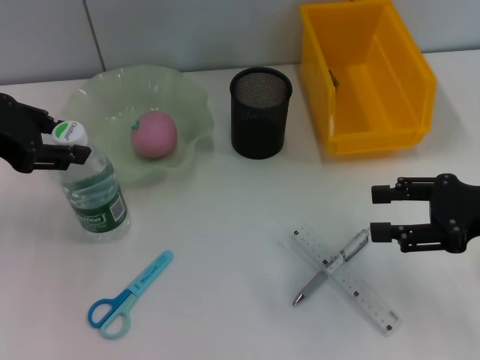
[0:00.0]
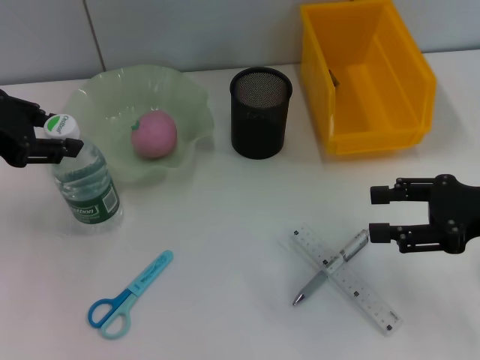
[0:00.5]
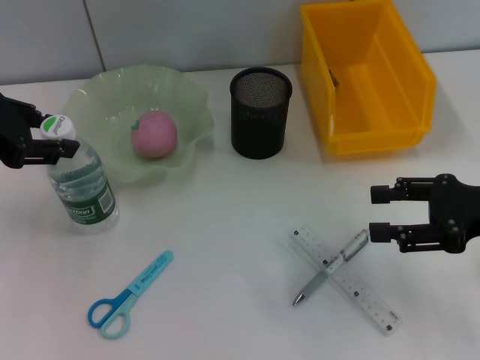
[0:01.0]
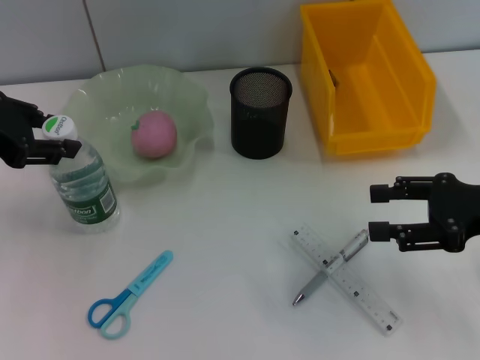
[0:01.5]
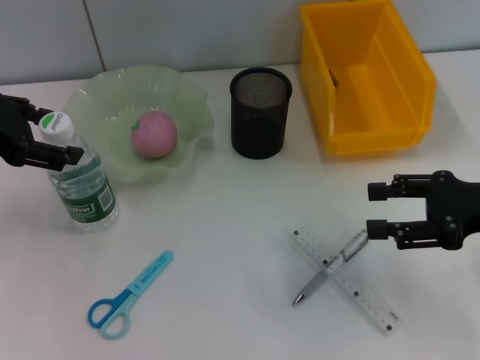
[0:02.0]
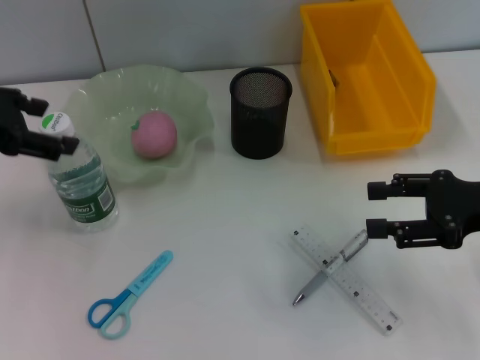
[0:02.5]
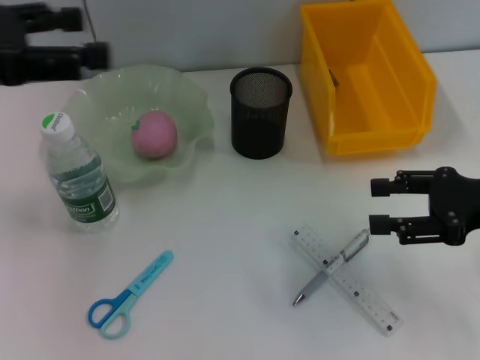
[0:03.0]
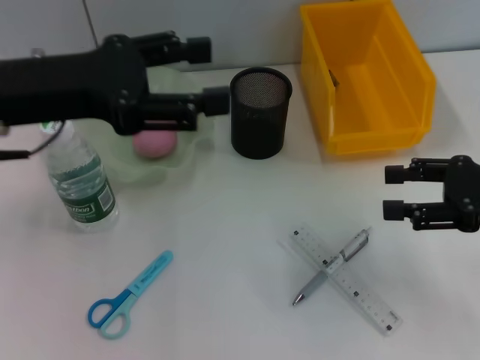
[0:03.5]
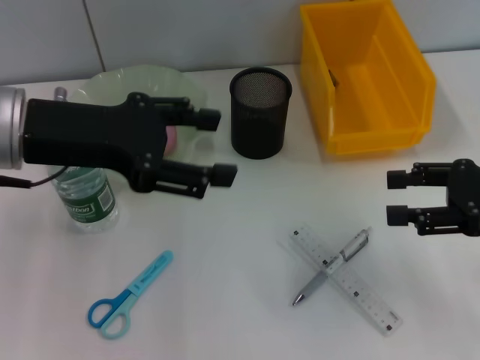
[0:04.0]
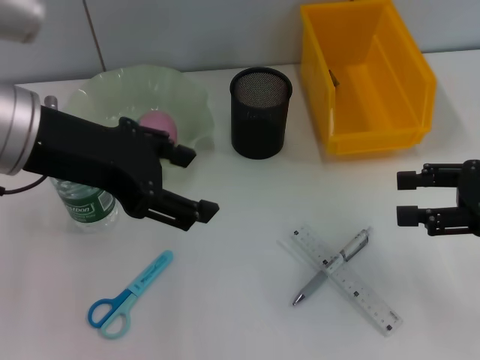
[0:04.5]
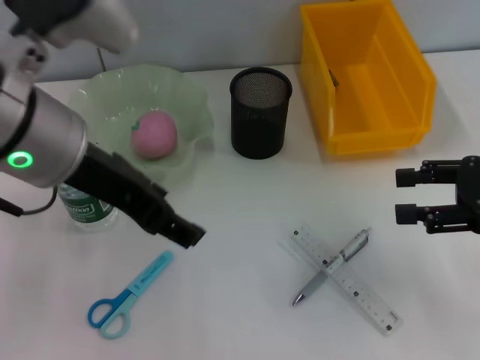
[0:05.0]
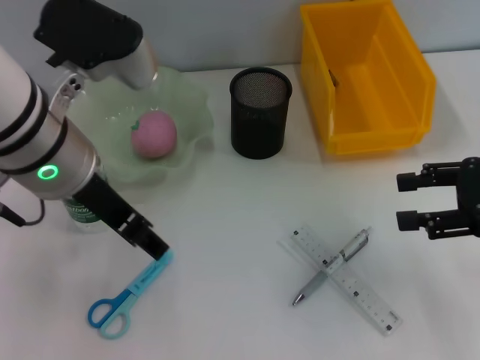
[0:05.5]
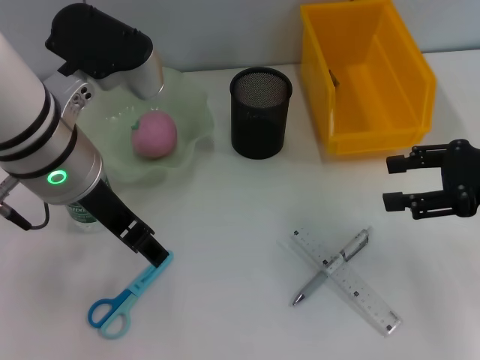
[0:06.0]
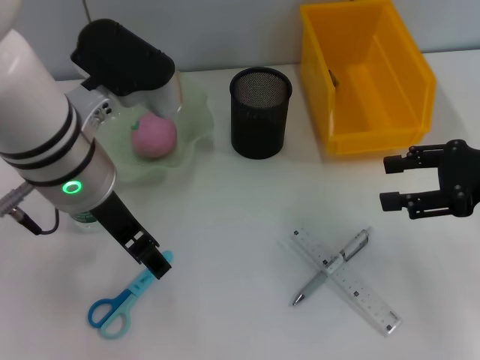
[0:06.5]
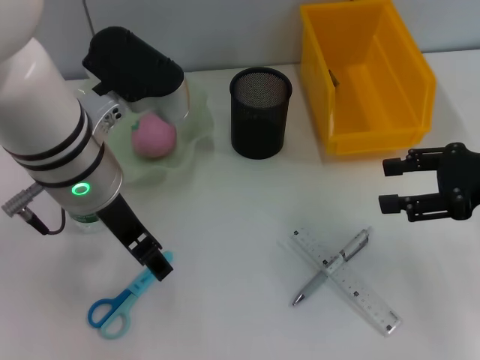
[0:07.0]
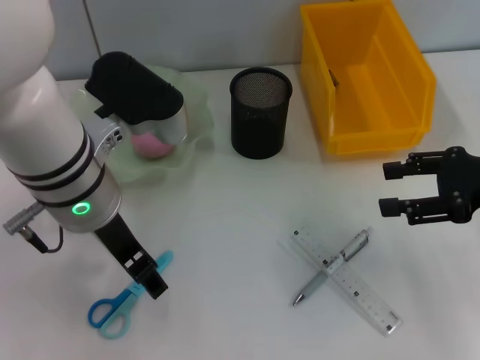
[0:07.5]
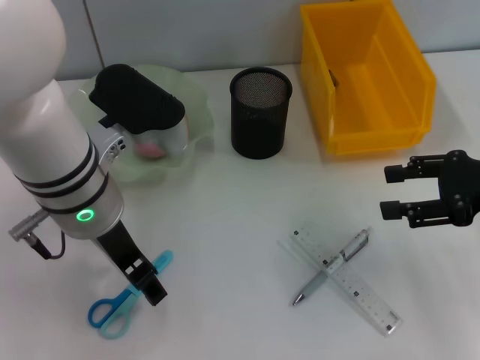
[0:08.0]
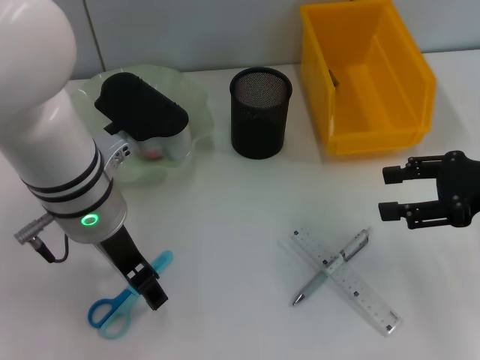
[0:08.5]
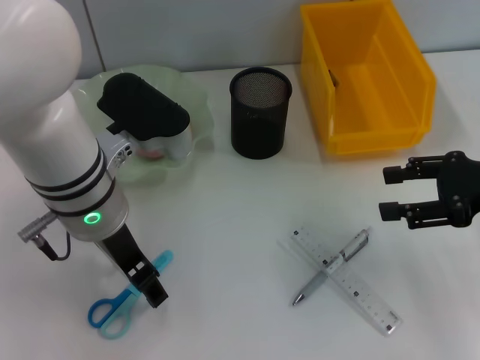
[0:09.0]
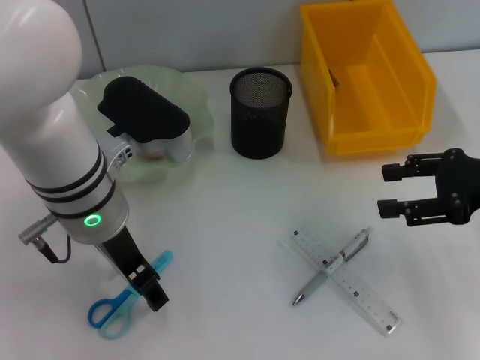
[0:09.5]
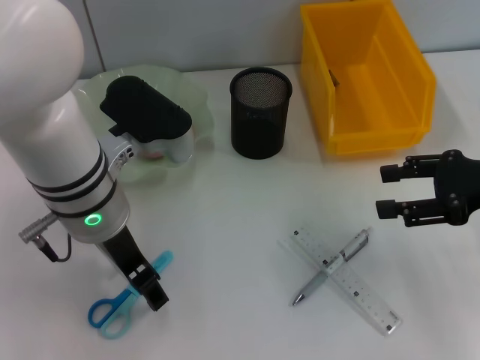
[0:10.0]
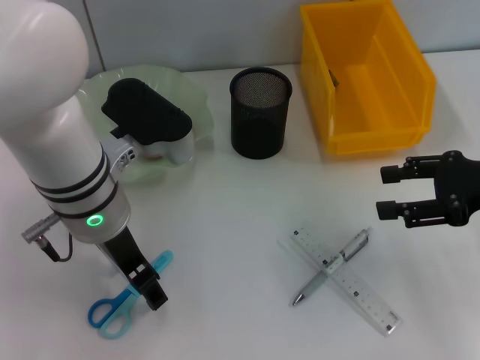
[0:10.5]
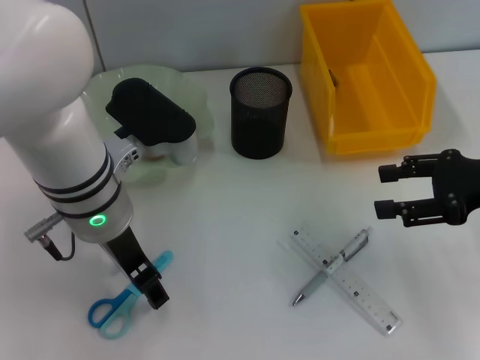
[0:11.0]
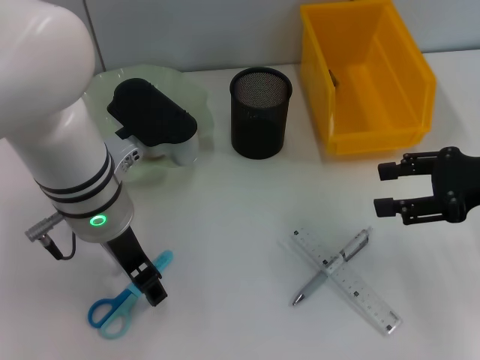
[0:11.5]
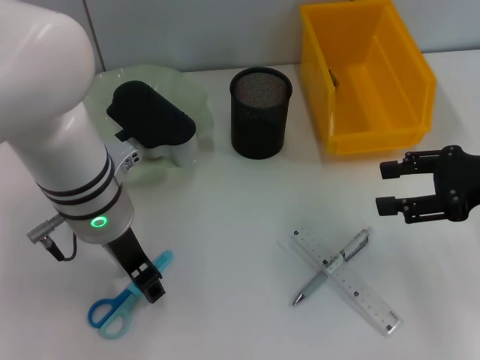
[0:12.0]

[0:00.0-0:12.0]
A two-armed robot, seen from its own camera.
0:00.0 to 0:02.0: Neither gripper changes place.
0:02.0 to 0:04.0: The left gripper goes approximately 10 cm to the right, and opens its fingers.
0:04.0 to 0:06.0: The left gripper heads to the right, covering roughly 5 cm.
0:06.0 to 0:10.0: The grippers stay close to where they were, moving slightly.
0:10.0 to 0:12.0: The left gripper closes up.

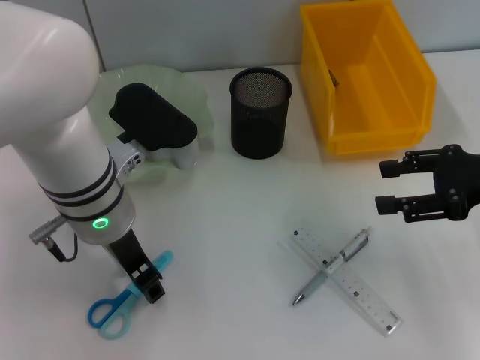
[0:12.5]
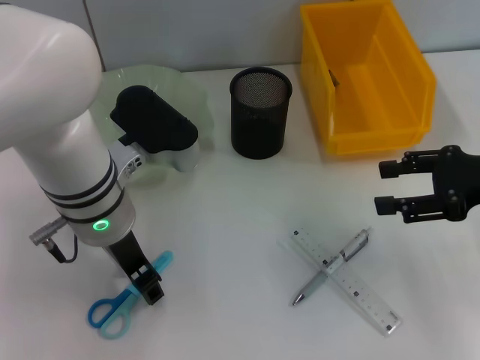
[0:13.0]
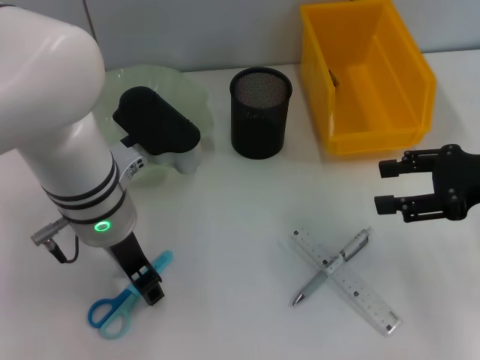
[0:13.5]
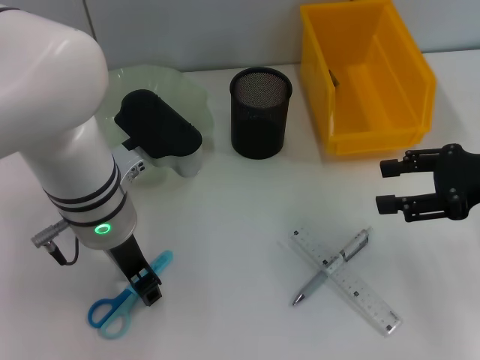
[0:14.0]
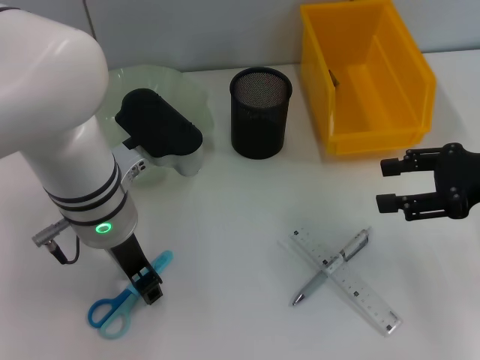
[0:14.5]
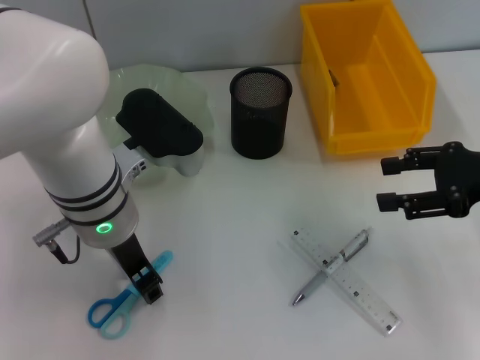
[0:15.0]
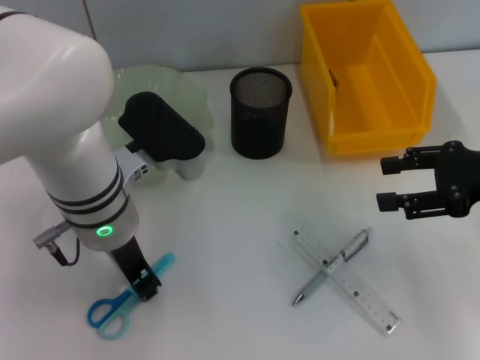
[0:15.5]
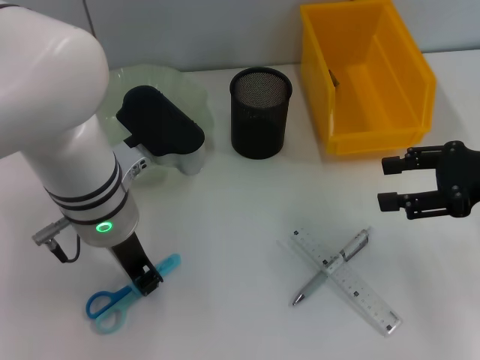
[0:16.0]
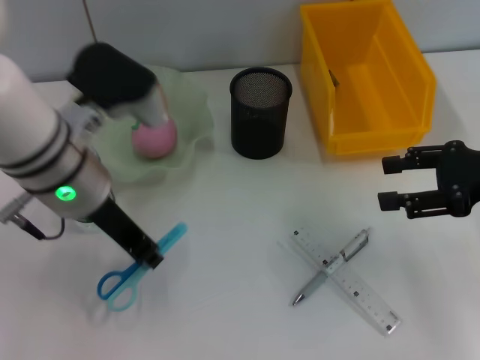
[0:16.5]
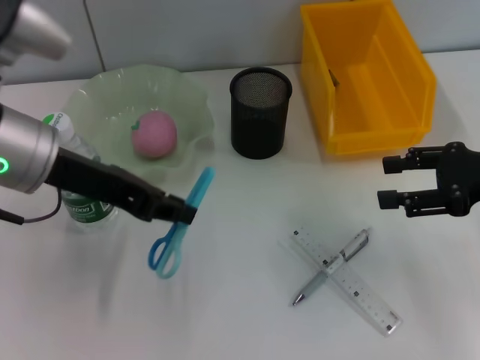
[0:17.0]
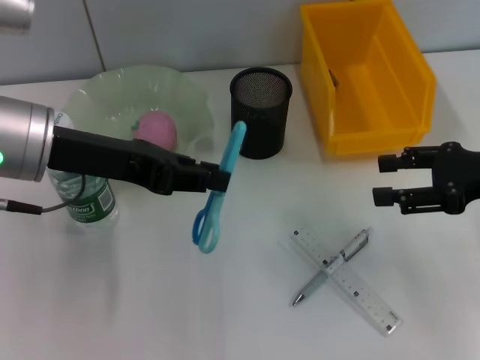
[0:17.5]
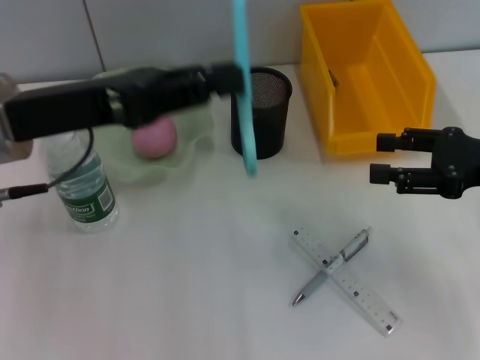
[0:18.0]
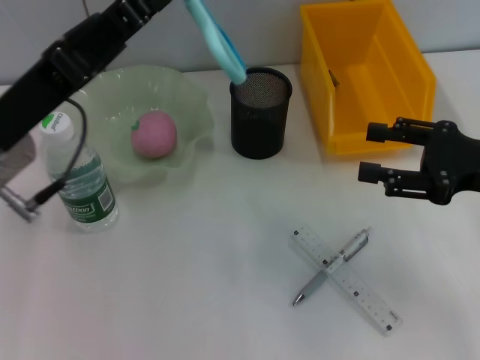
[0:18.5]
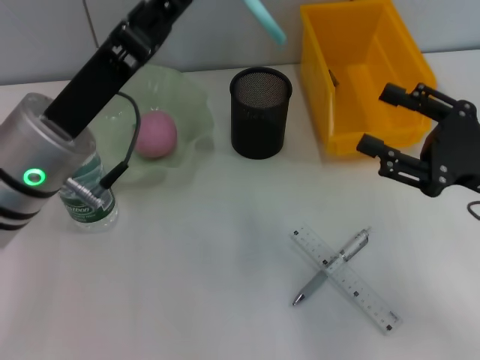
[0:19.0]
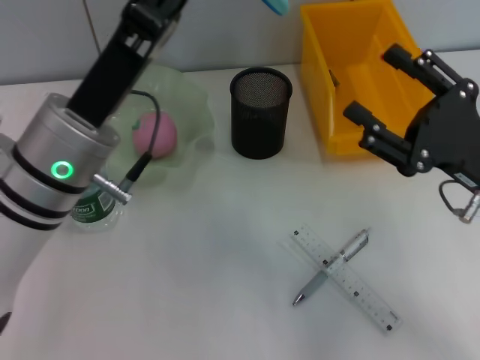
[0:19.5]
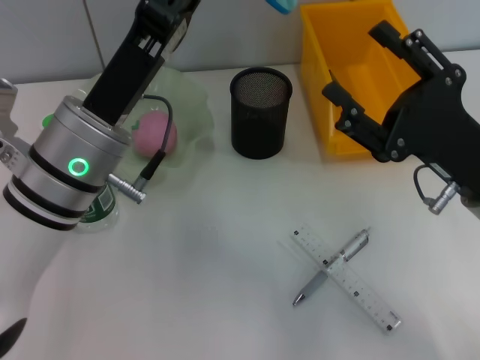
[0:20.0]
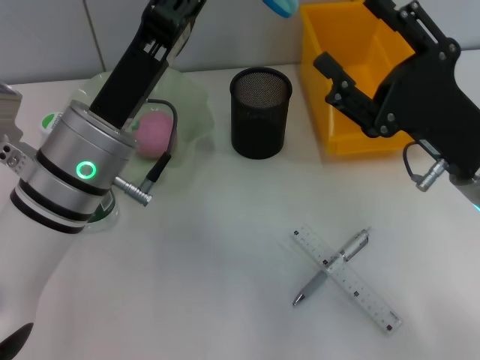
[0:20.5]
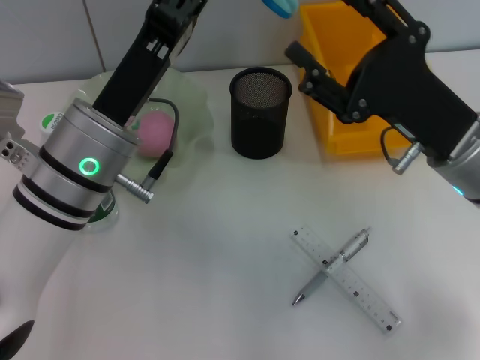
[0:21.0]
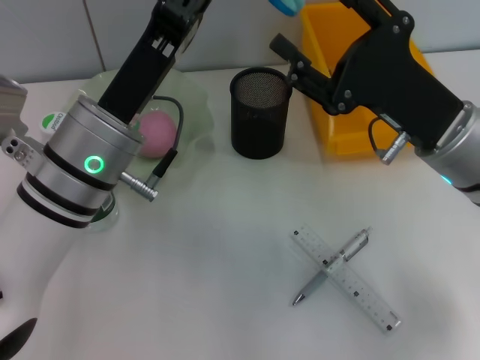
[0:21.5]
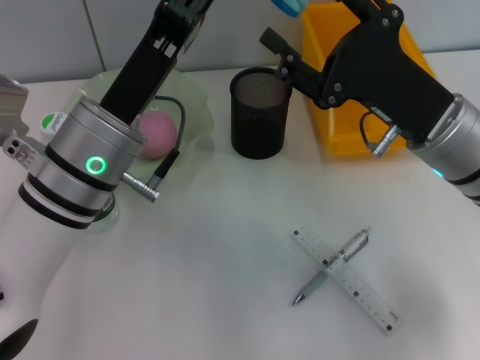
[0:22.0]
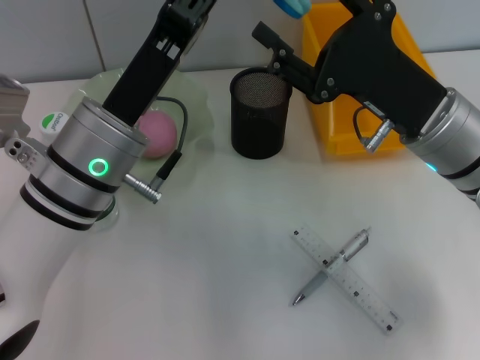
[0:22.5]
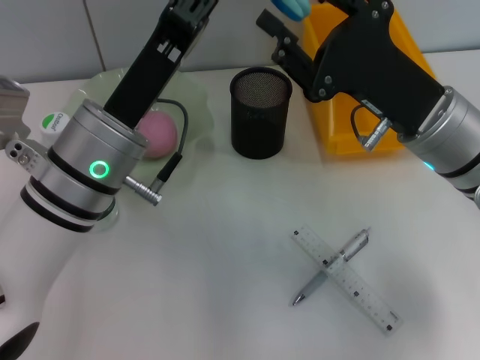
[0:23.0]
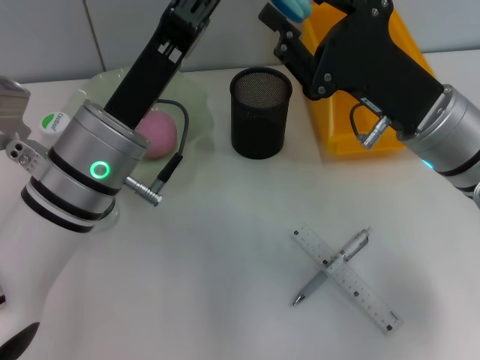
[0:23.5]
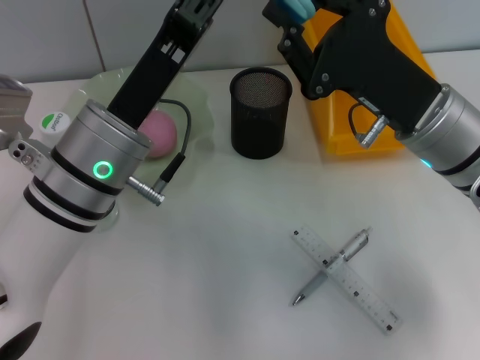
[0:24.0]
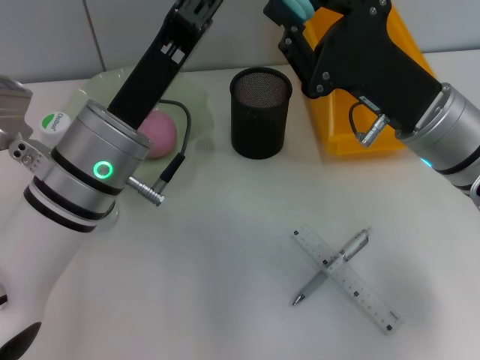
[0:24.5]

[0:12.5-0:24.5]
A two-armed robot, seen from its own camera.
Step, 0:12.5 to 0:15.5: Grab the blue scissors with the left hand.
0:12.5 to 0:14.5: Both grippers stay put.
0:14.5 to 0:16.5: The left gripper closes its fingers.
0:16.5 to 0:18.5: The left gripper is displaced to the left by approximately 5 cm.
0:18.5 to 0:20.5: The left gripper is displaced to the right by about 5 cm, while the right gripper heads to the left, covering some 10 cm.
0:20.5 to 0:22.5: The right gripper shifts by roughly 5 cm.
0:22.5 to 0:24.5: The right gripper closes up.

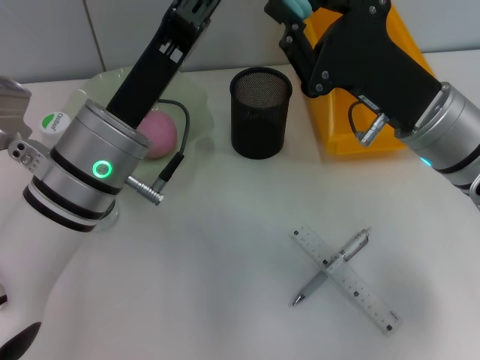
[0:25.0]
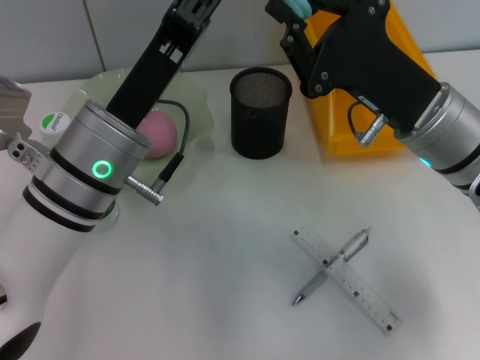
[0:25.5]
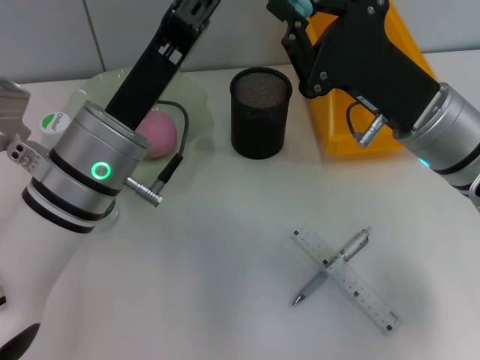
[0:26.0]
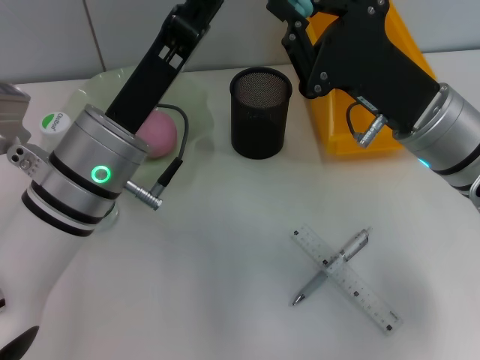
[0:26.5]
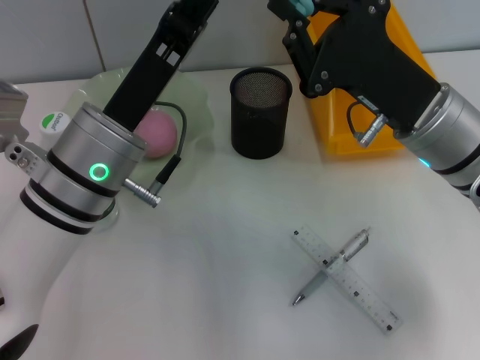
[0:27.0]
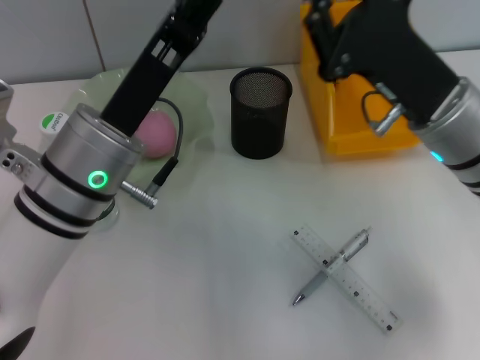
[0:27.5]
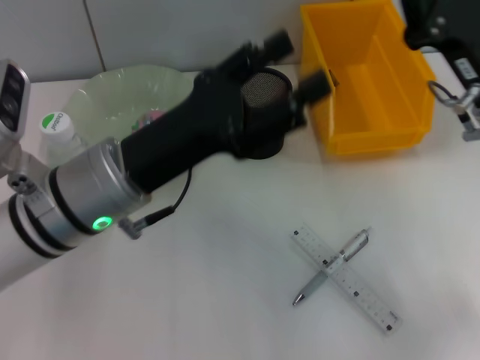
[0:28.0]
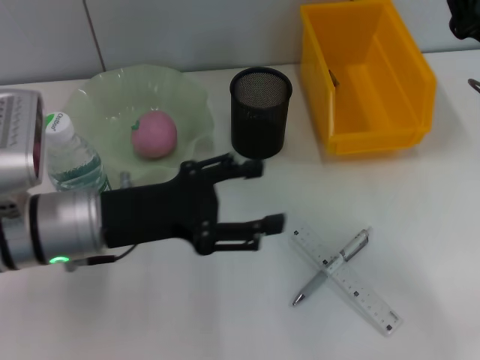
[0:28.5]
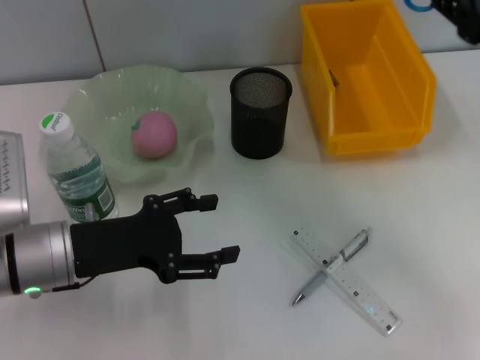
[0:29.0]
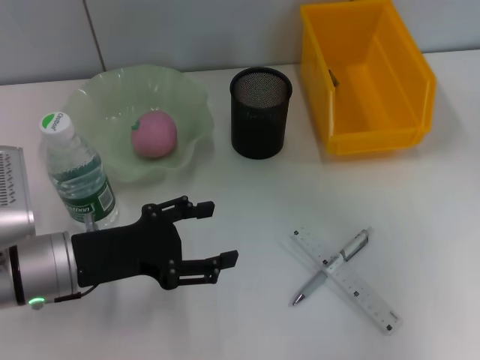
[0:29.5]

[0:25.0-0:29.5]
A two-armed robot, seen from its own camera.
Step, 0:25.0 to 0:27.5: Pass the blue scissors from the left hand to the right hand.
0:25.0 to 0:27.0: The left gripper opens its fingers.
0:27.0 to 0:29.5: The right gripper travels to the right and upward by about 20 cm. The left gripper goes some 10 cm to the left and downward.
